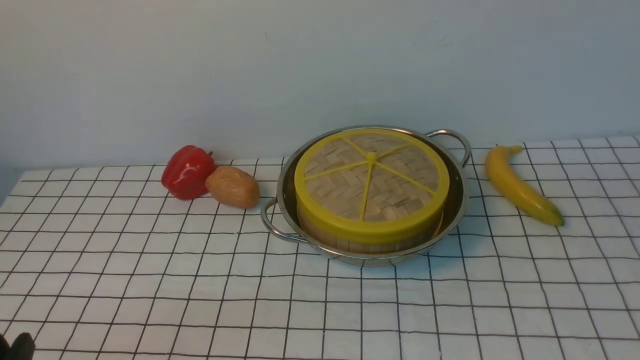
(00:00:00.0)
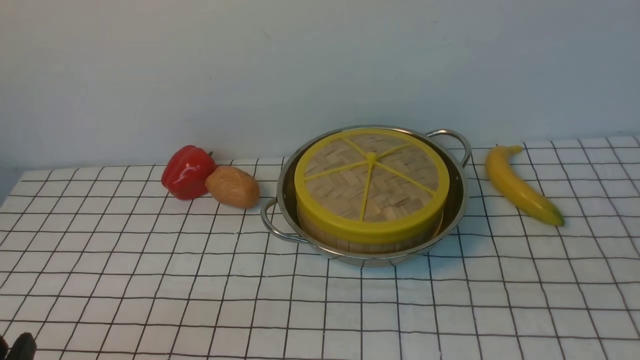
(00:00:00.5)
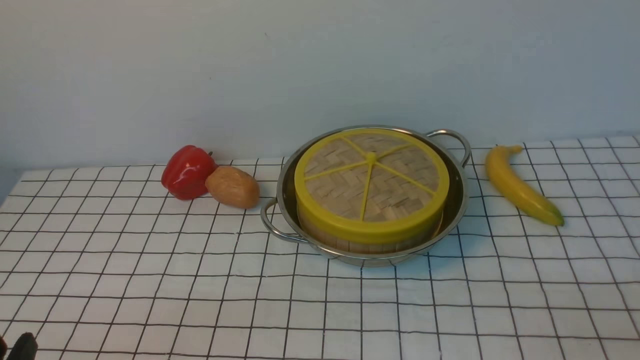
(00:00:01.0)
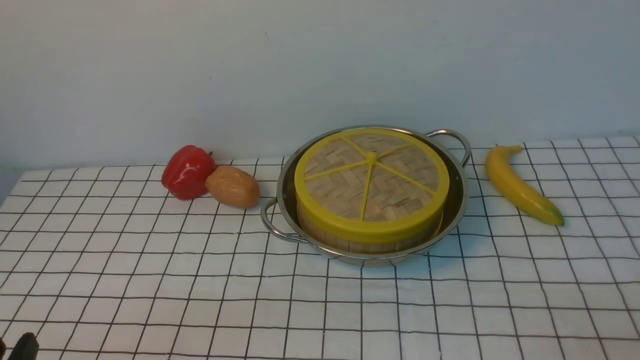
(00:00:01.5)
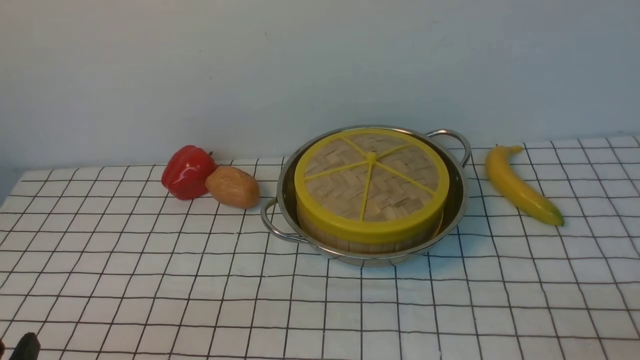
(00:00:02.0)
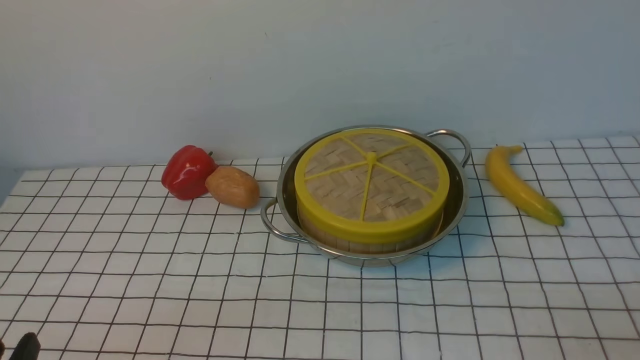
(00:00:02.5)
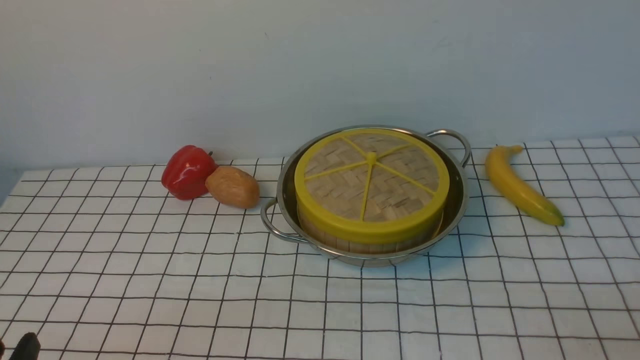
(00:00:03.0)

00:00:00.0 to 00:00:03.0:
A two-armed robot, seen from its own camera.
Task of the whole recording: place the steamer in the pot on the white tablecloth, and put the lid on the steamer.
00:00:01.5 to 00:00:03.0: Both grippers stay put.
